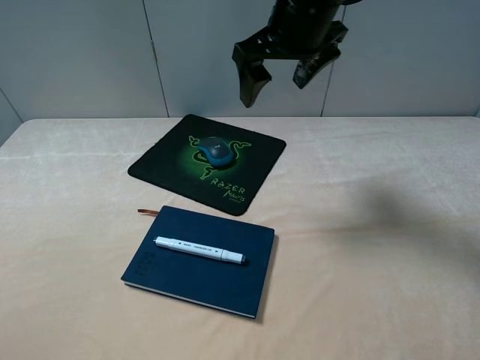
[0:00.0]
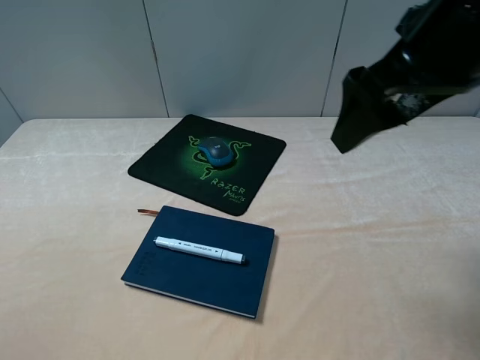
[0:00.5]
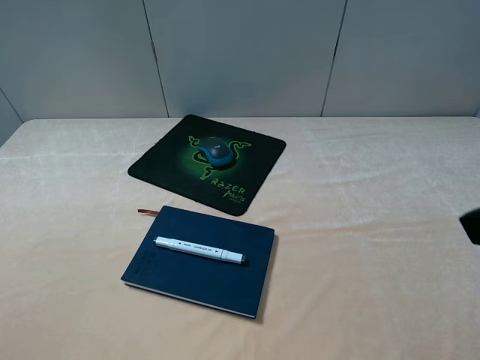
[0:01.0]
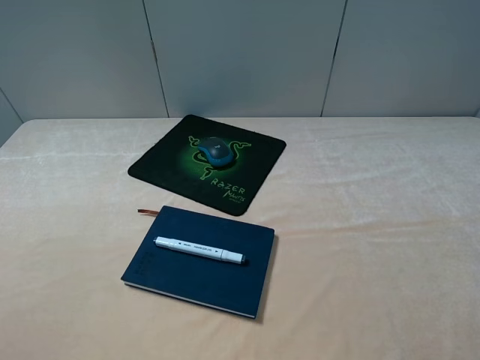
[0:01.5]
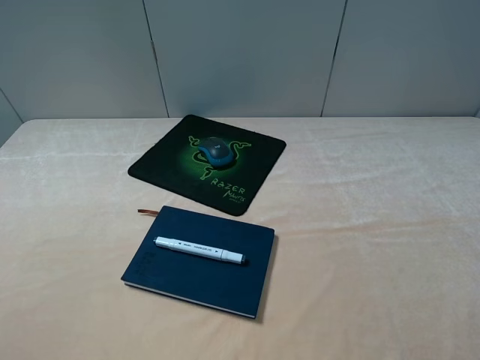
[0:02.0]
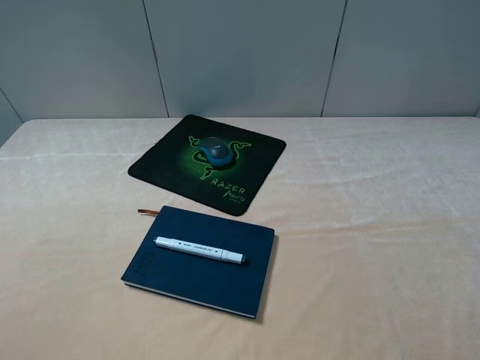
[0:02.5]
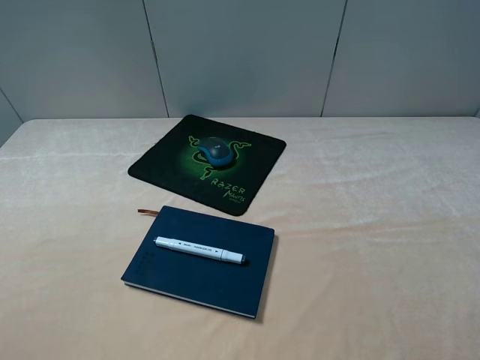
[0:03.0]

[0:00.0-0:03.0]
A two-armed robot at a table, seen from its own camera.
0:00.0 to 0:01.5: The right gripper goes approximately 40 cm backward and to the right.
